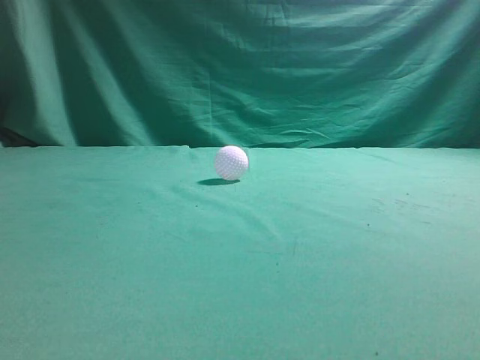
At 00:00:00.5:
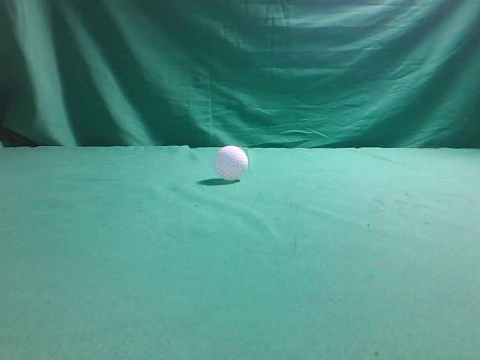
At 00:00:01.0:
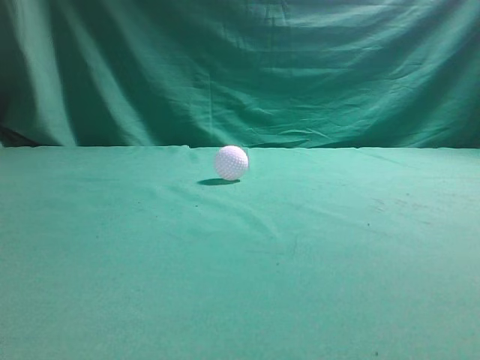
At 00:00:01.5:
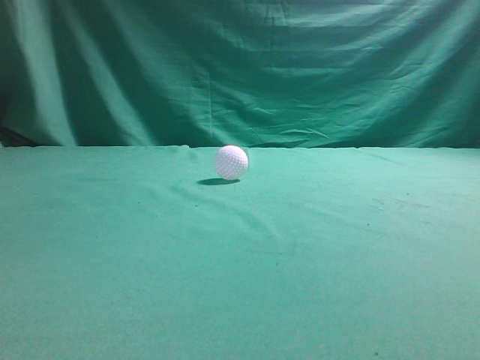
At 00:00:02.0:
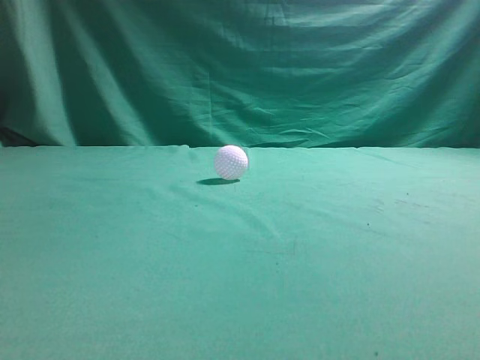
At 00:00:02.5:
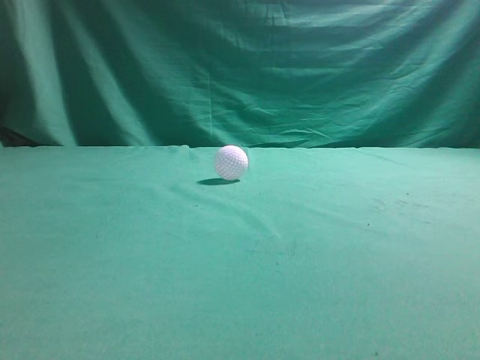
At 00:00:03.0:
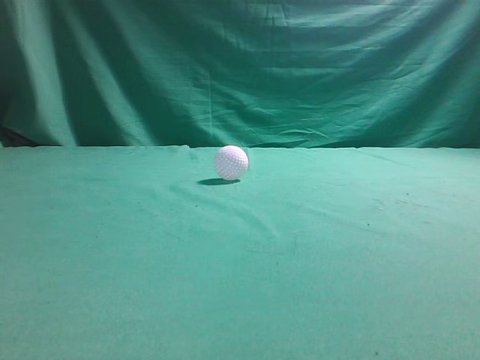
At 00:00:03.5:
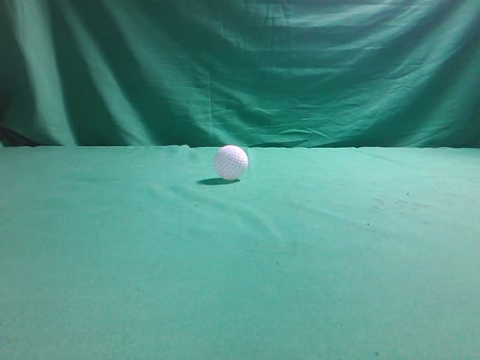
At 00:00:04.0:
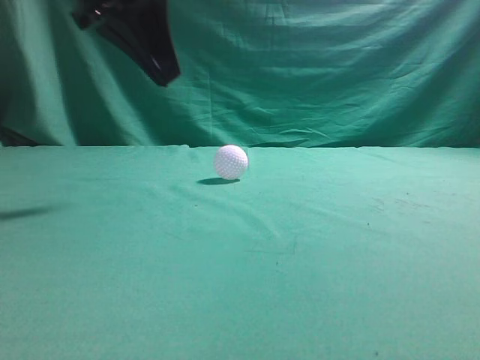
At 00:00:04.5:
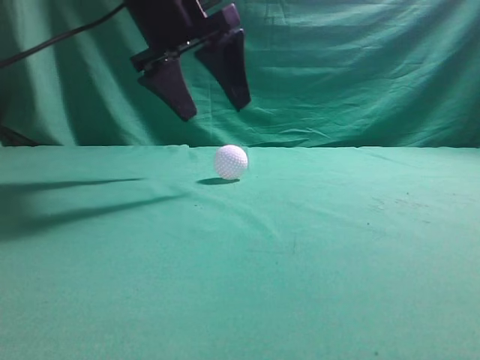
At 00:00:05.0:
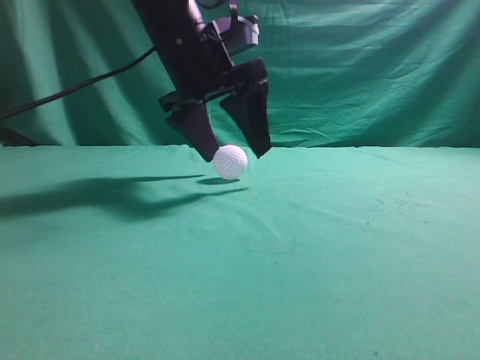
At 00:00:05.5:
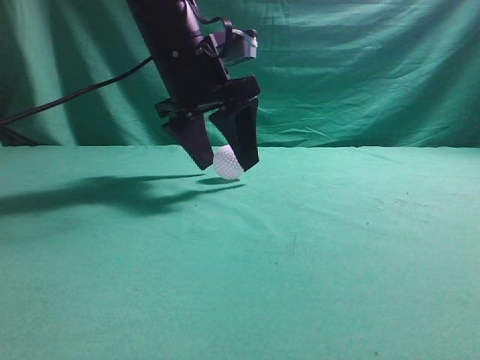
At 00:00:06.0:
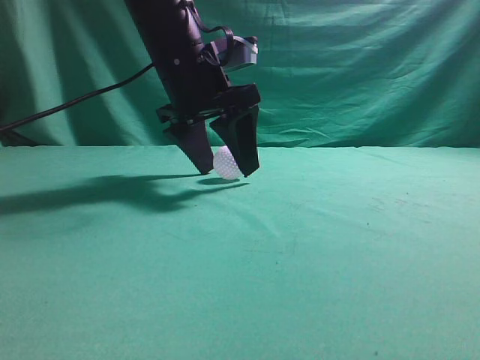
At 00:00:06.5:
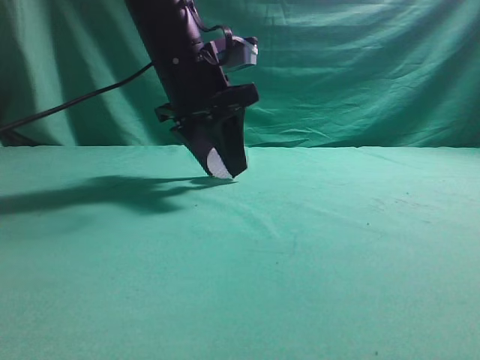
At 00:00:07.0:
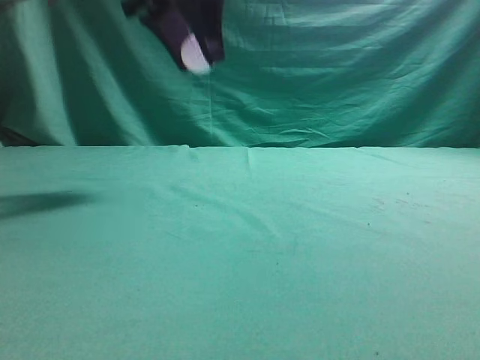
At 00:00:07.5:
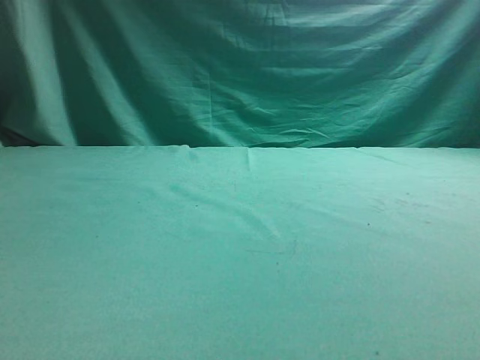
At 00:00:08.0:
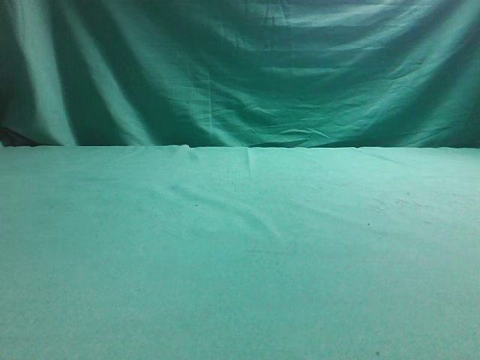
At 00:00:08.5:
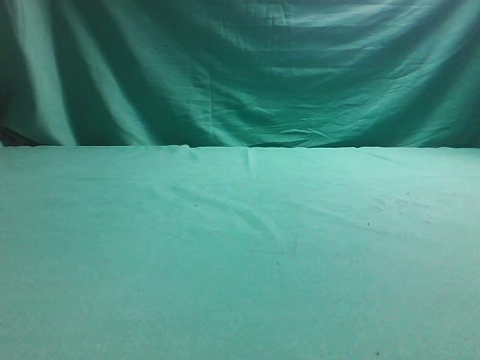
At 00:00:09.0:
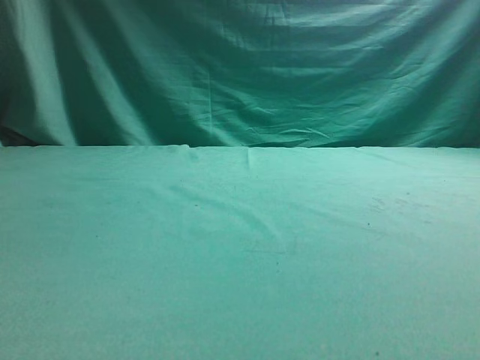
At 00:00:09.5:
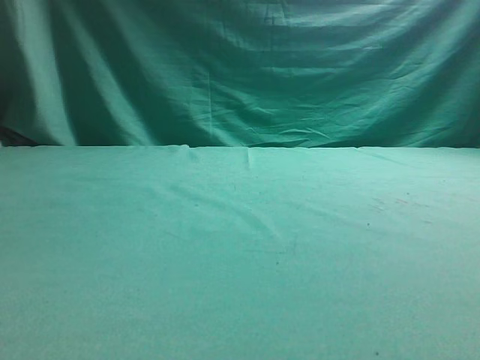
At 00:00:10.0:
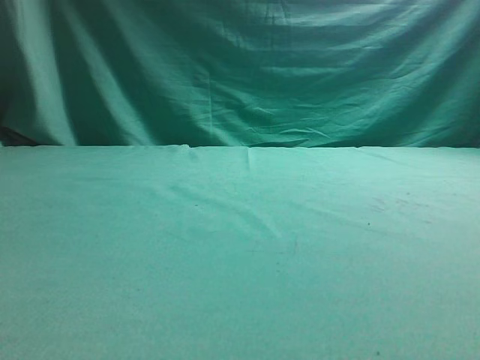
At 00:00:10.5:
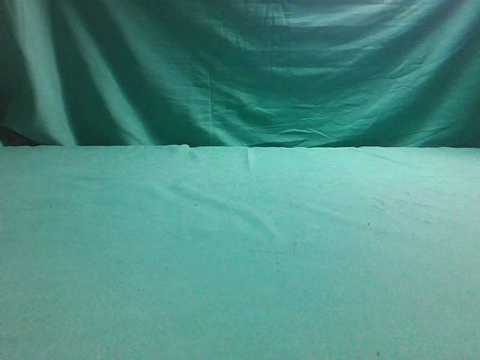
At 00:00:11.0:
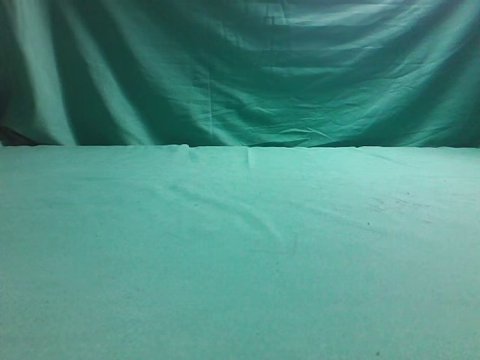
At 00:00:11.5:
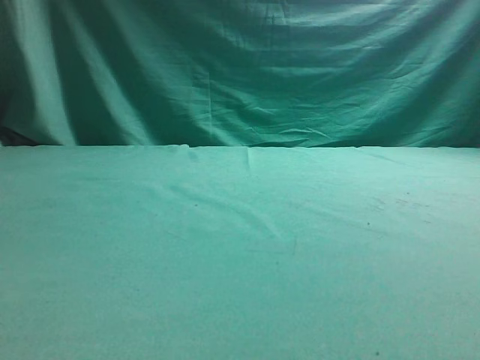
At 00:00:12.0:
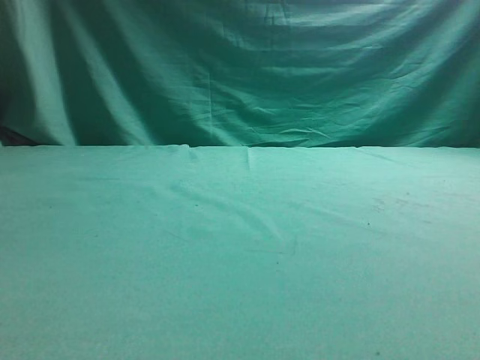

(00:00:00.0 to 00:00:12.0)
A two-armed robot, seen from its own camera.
Task of the whole recording: pick up the ball and place it on the plate, then pick up the ball from the plate and put it in the center of the table.
Step, 00:00:00.0 - 00:00:06.5: Grab the spherical object with your left arm.
Step, 00:00:07.0 - 00:00:11.5: Place the sphere on the white object.
00:00:02.0 - 00:00:04.0: The left gripper shifts approximately 35 cm forward and to the right.
00:00:04.0 - 00:00:06.0: The left gripper goes some 15 cm forward, downward and to the right, and opens up.
00:00:06.0 - 00:00:08.0: The left gripper moves to the left, backward and upward, approximately 30 cm, and closes.

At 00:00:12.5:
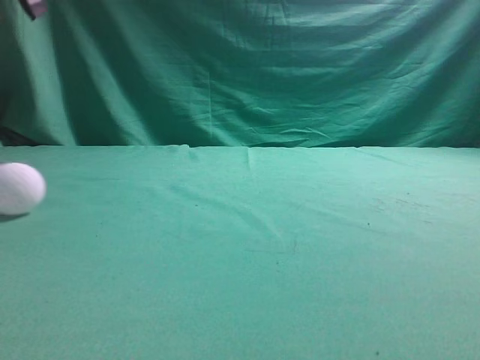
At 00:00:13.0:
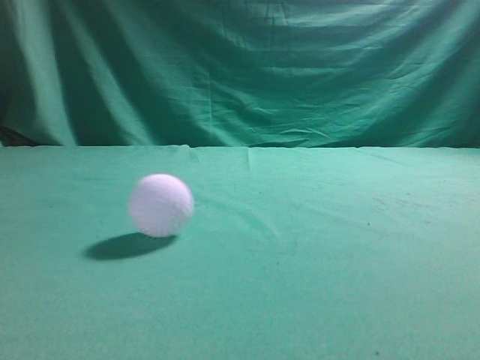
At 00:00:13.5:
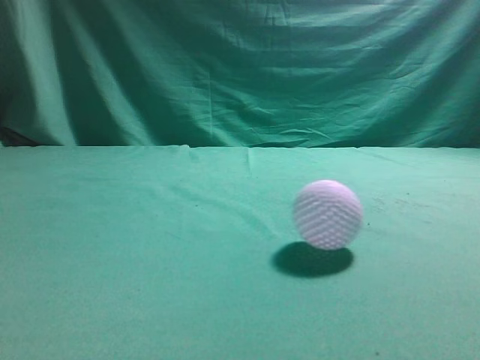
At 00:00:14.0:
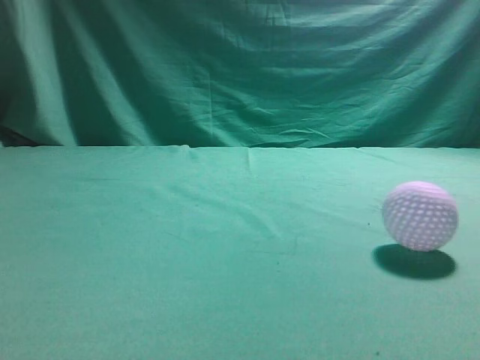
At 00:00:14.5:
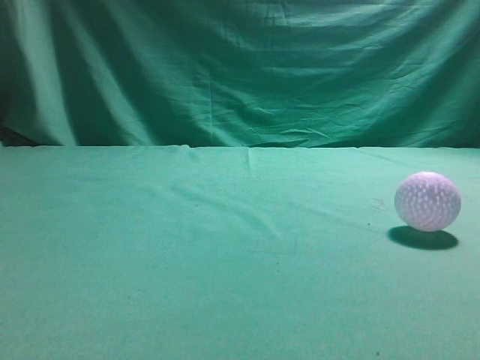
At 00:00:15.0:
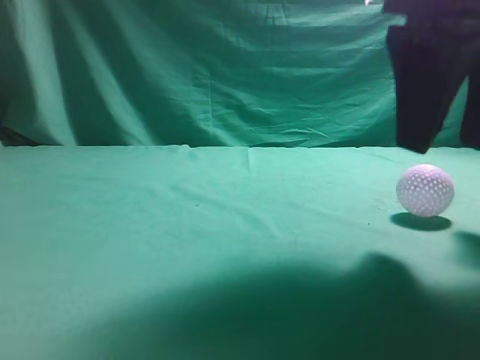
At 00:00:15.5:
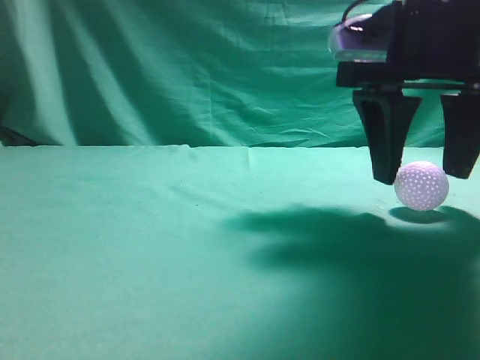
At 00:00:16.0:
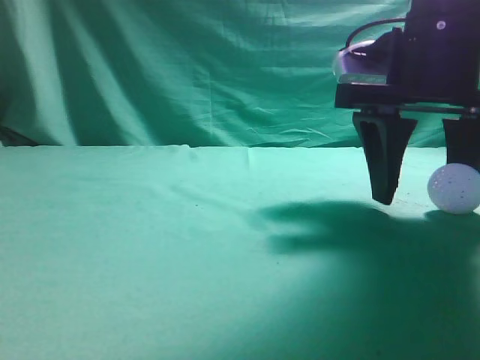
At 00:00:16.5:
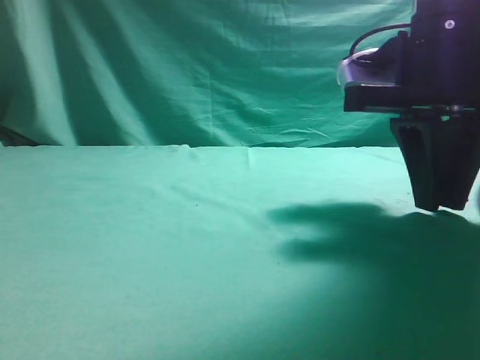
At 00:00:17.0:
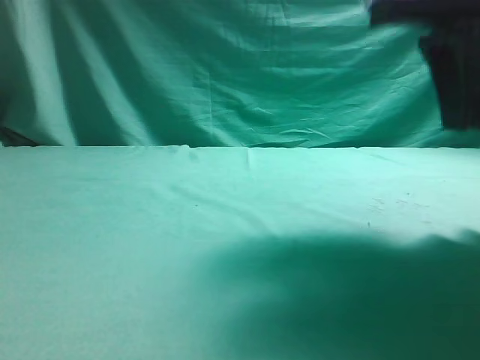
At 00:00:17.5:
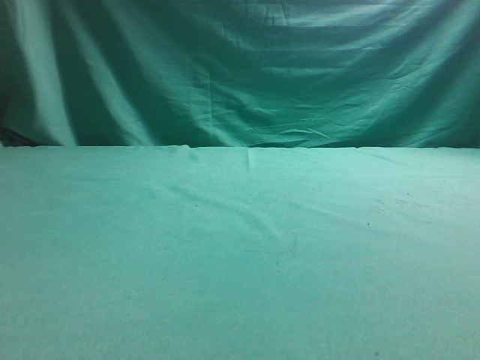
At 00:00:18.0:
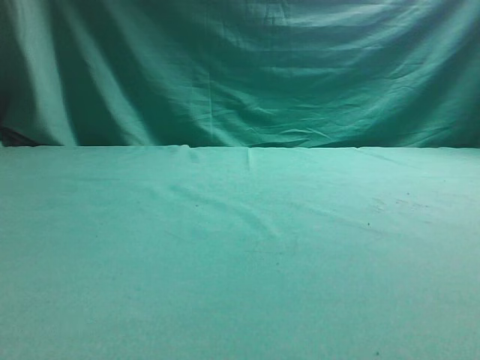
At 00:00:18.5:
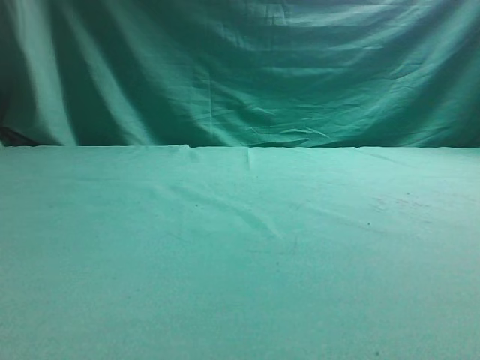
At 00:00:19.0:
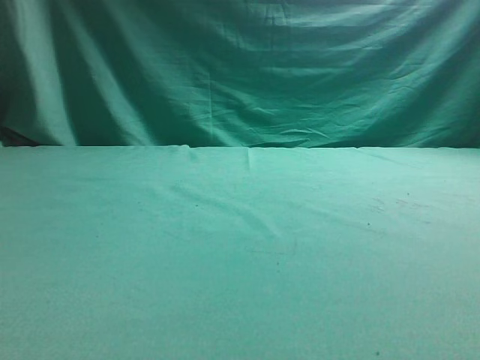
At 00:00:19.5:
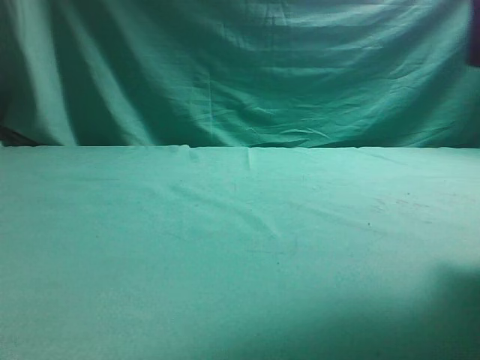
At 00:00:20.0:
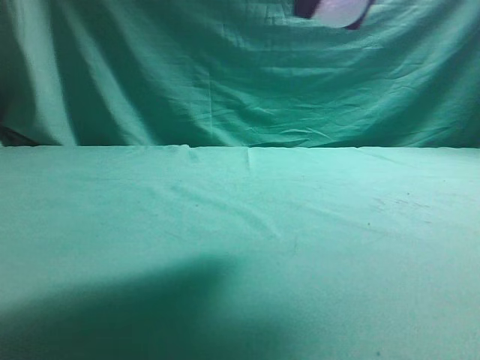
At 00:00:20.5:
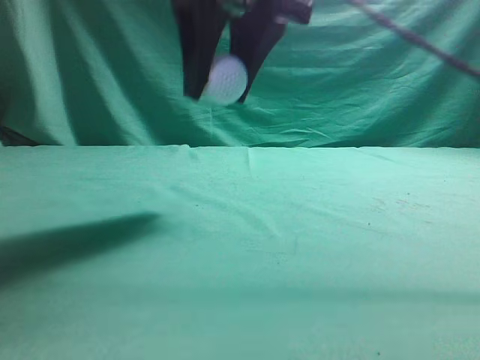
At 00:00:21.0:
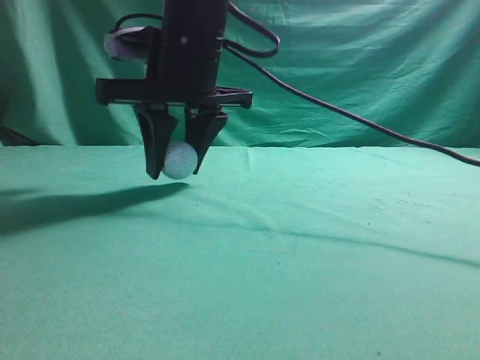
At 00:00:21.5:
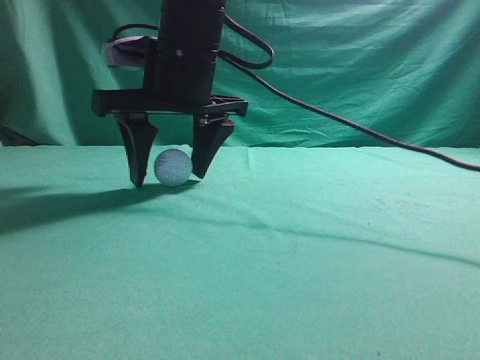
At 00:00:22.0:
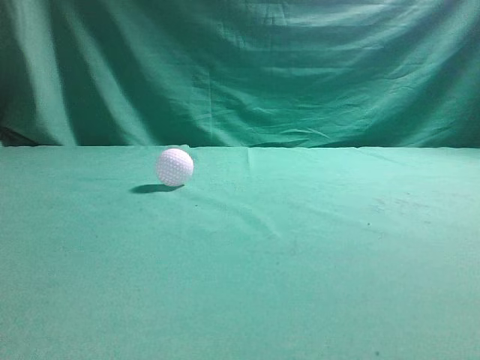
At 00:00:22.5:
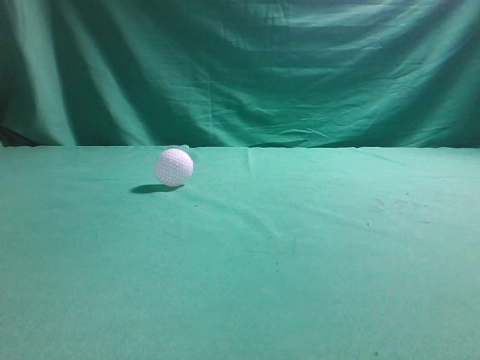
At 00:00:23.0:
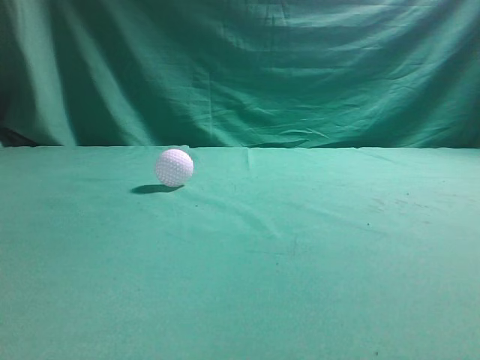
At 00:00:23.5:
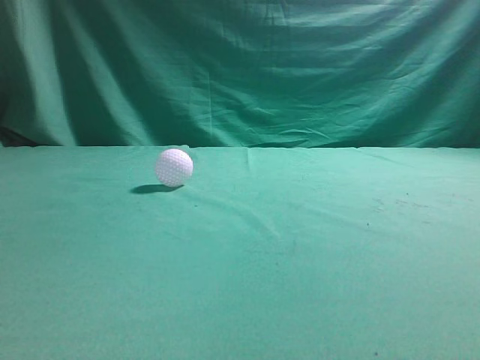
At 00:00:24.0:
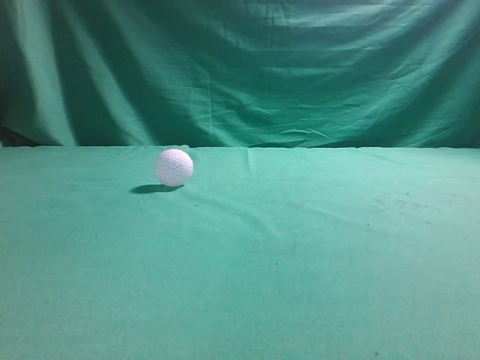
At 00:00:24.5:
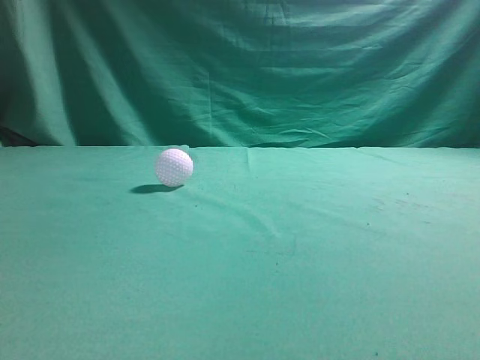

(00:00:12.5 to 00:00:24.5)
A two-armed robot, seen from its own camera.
Task of the whole recording: pick up the ball and place it on the plate, then pick up the ball from the plate and put it in the center of the table.
Step, 00:00:12.5 - 00:00:19.0: Grab the rolling spherical object.
Step, 00:00:19.5 - 00:00:21.5: Put the picked-up object on the table.
00:00:12.5 - 00:00:14.5: The right gripper is displaced to the left by about 5 cm, and opens its fingers. The left gripper heads backward, covering about 25 cm, and closes up.
00:00:14.5 - 00:00:16.5: The right gripper goes roughly 15 cm forward and downward, and closes.
00:00:16.5 - 00:00:18.5: The right gripper is displaced to the right and backward by roughly 15 cm, and opens.
00:00:18.5 - 00:00:20.5: The right gripper is displaced to the left by about 25 cm, and closes up. The left gripper goes some 5 cm downward and backward.
00:00:20.5 - 00:00:22.5: The right gripper travels upward by approximately 20 cm, and closes.
